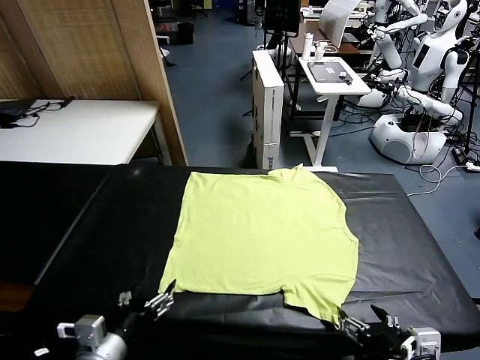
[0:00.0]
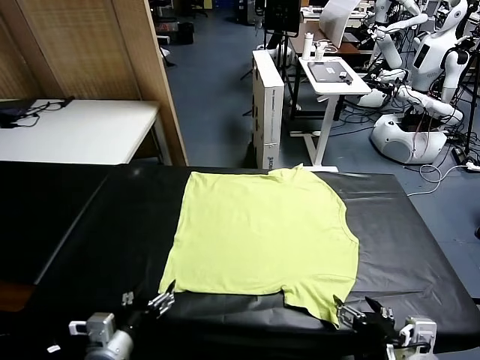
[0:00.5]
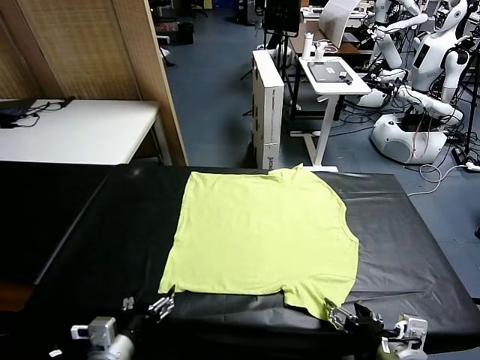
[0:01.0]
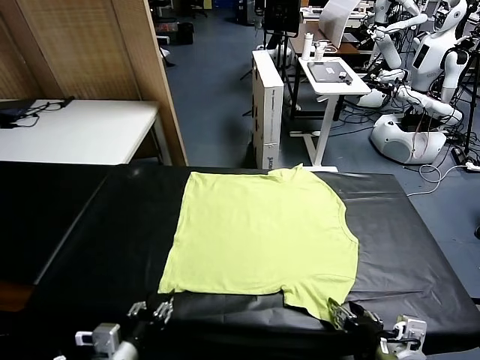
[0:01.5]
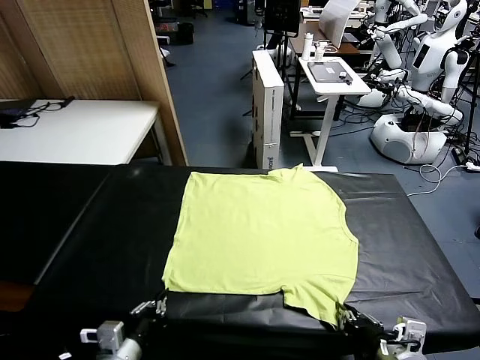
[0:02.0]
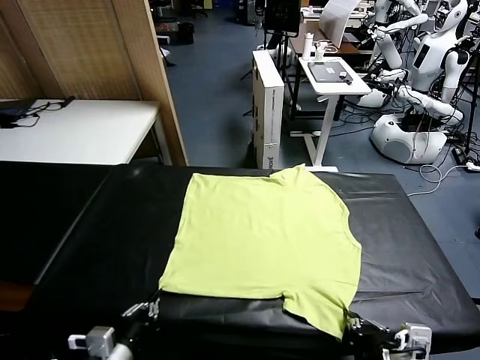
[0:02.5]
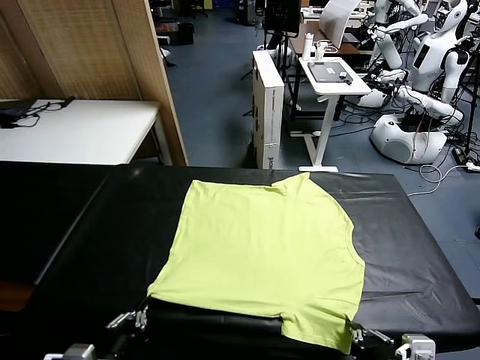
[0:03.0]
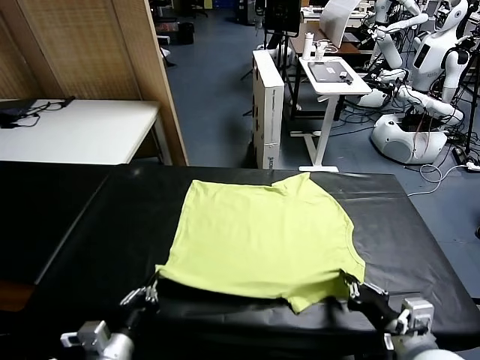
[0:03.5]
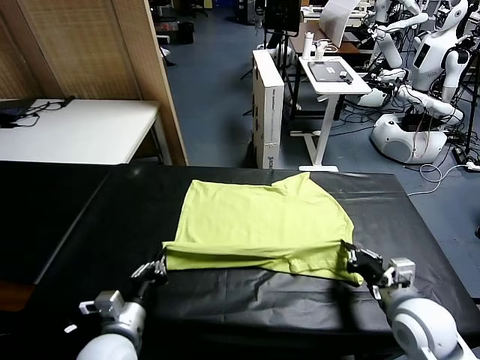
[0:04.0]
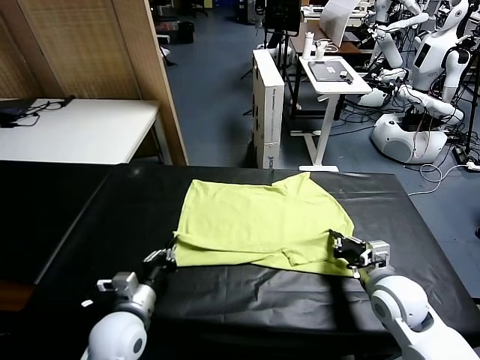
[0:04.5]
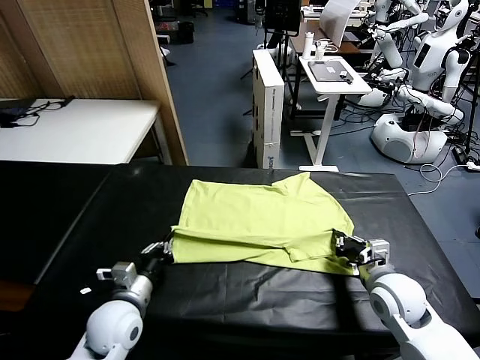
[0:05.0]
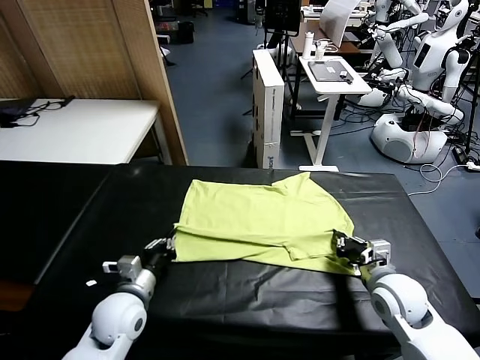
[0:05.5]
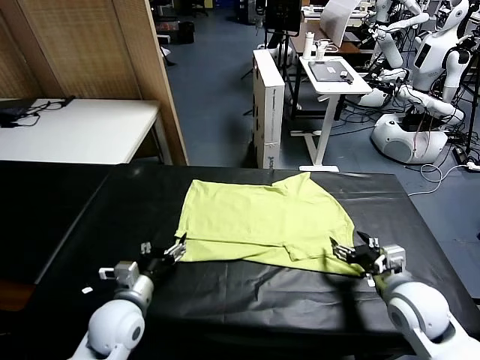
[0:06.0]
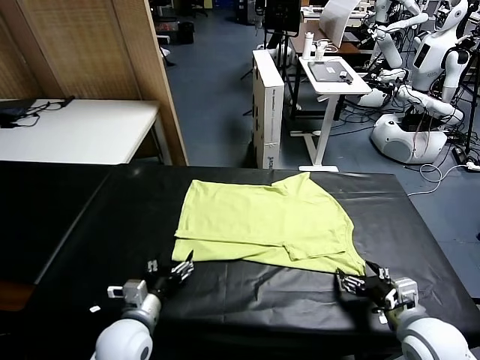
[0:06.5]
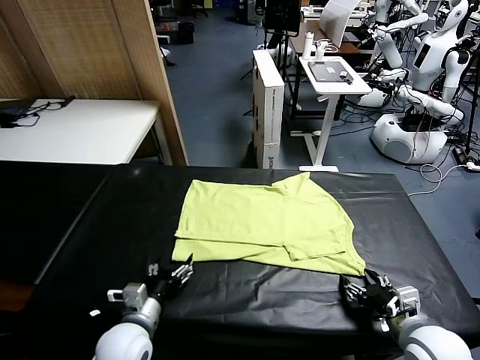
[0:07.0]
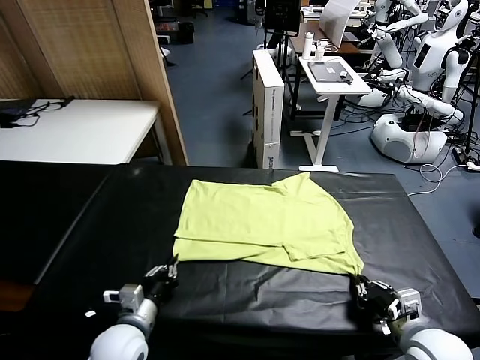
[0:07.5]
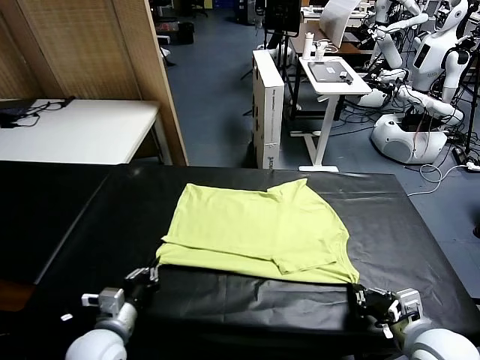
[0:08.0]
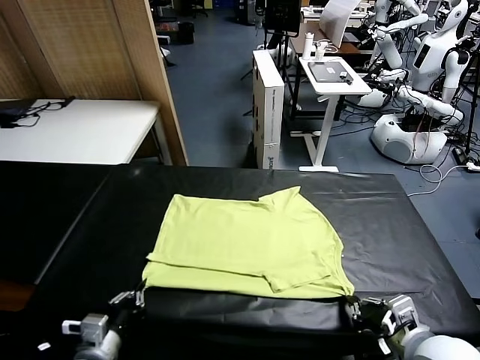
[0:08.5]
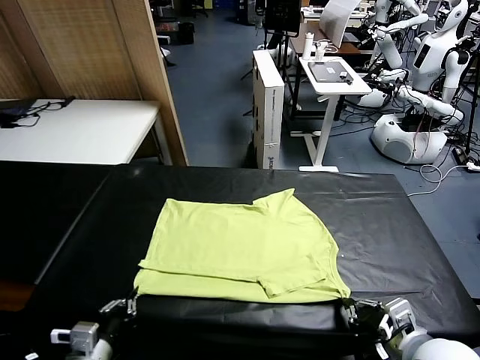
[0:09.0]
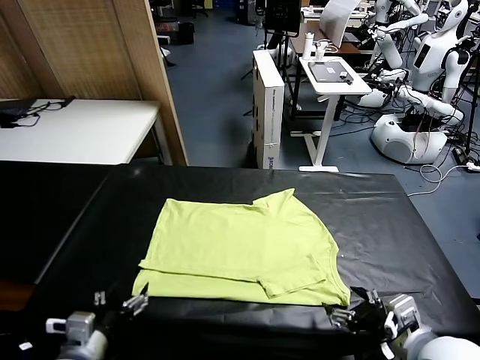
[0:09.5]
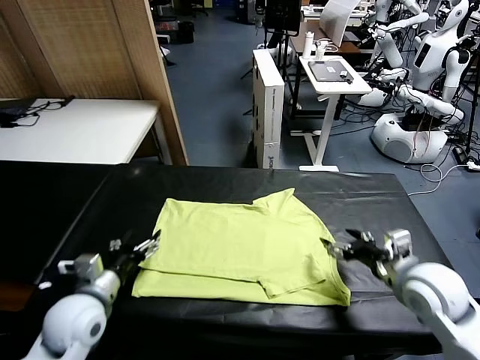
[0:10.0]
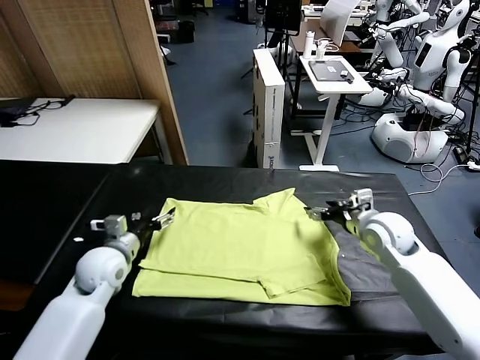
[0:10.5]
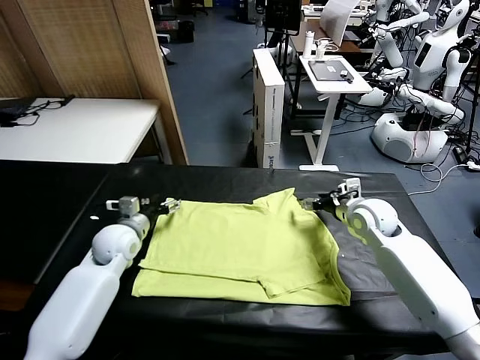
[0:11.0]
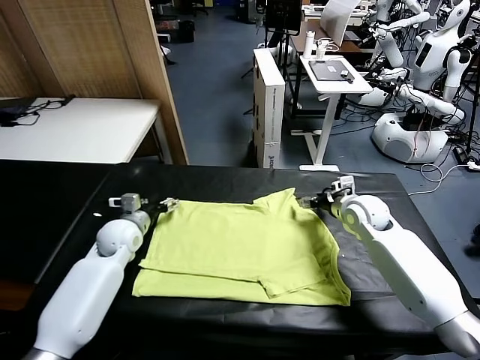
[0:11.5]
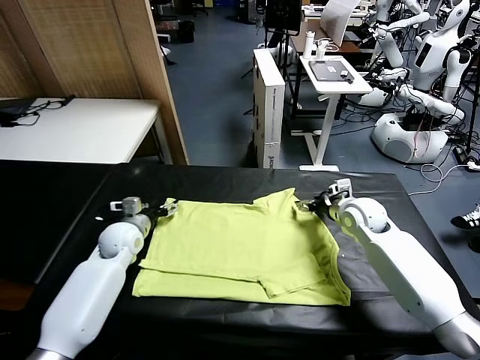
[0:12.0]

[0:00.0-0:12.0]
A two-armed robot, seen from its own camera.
Task of the whole recording: fold and organize the clothes.
Step, 0:00.0 to 0:02.0: use both grippers simultaneously to clamp the lower edge of the clothing fabric.
Step, 0:02.5 to 0:05.5: use both grippers to drag the lower edge of the fabric forward and fold it over the upper edge.
Step, 0:06.0 to 0:09.0: Drag the clothes downward with both gripper.
0:02.0 to 0:04.0: The right gripper is displaced forward by about 15 cm, while the left gripper shifts roughly 10 cm forward.
0:04.0 to 0:06.0: The left gripper opens its fingers. Meanwhile the right gripper shifts approximately 5 cm backward, and opens up.
0:06.0 to 0:08.0: The left gripper heads backward, covering roughly 5 cm, and closes. The right gripper ends up some 5 cm from where it was, and closes its fingers.
0:08.0 to 0:10.0: The left gripper goes about 15 cm forward and upward, and opens its fingers, while the right gripper moves forward, about 20 cm, and opens up.
0:10.0 to 0:12.0: The left gripper moves forward, some 15 cm. The right gripper travels forward by approximately 10 cm.

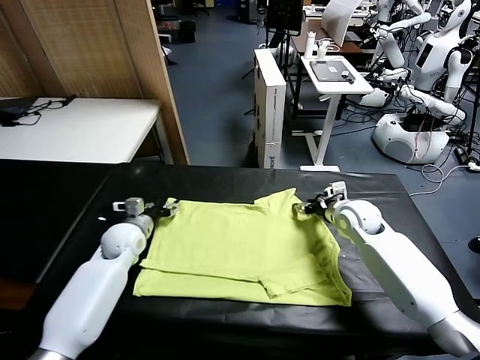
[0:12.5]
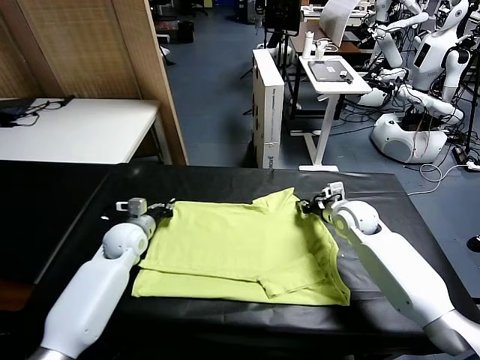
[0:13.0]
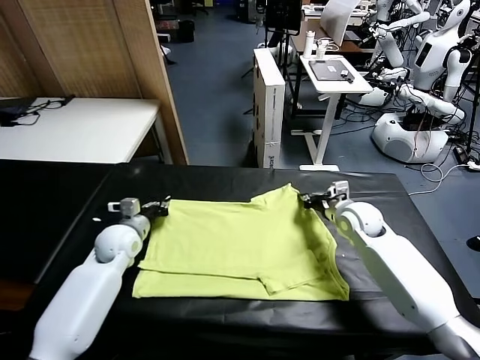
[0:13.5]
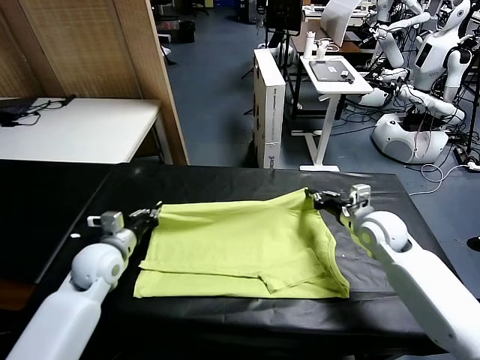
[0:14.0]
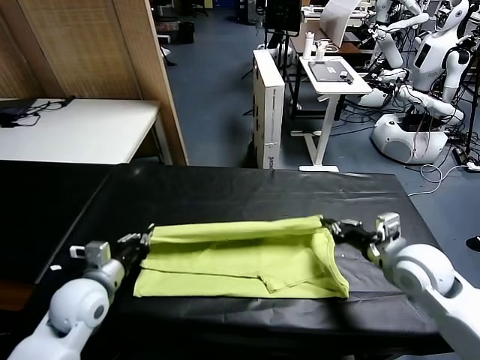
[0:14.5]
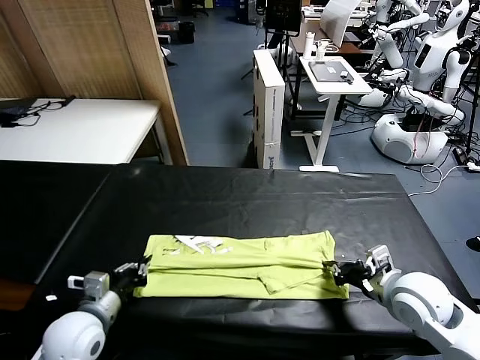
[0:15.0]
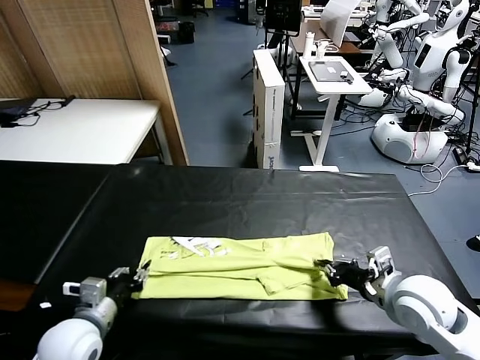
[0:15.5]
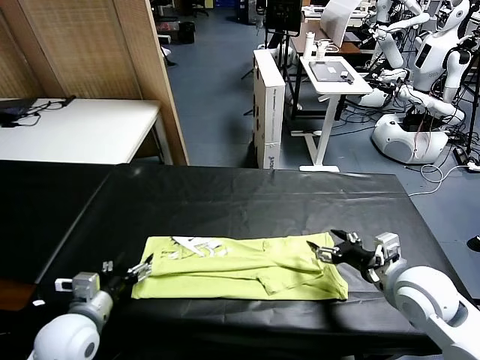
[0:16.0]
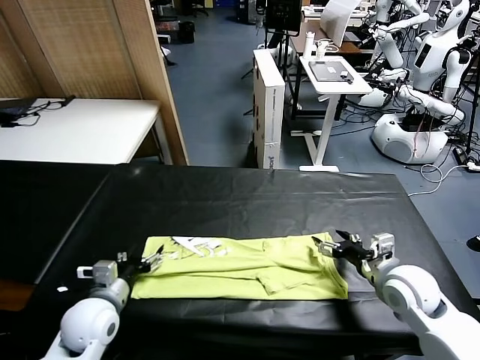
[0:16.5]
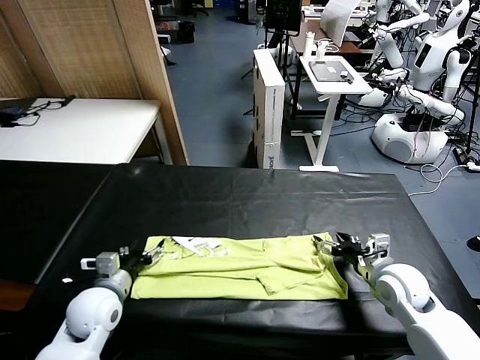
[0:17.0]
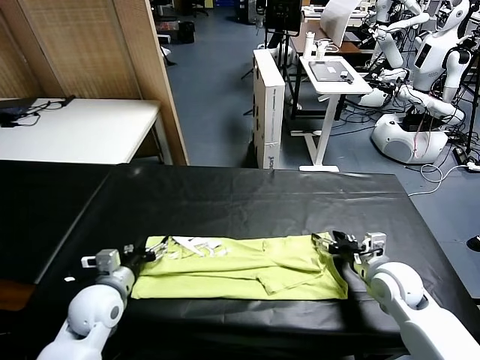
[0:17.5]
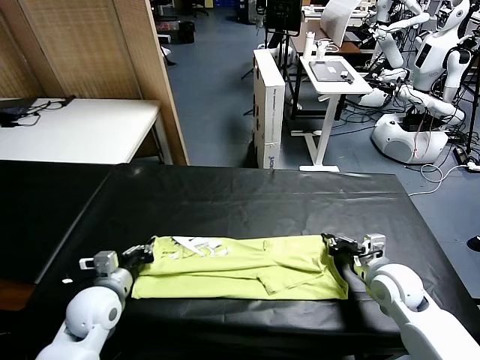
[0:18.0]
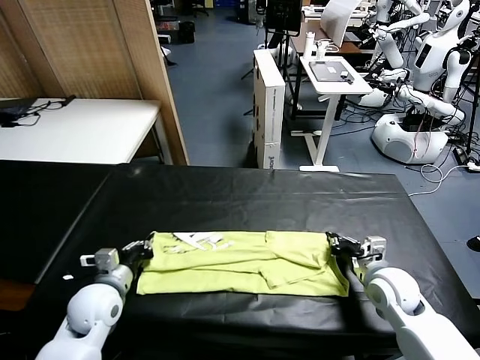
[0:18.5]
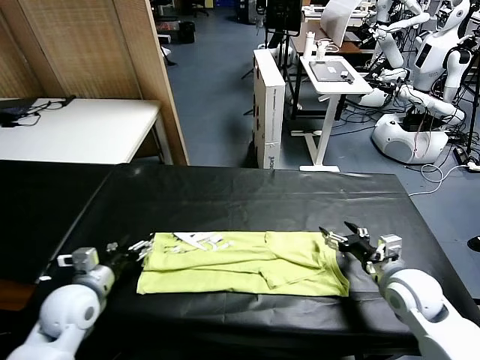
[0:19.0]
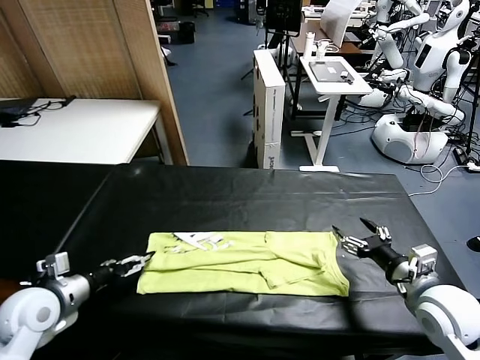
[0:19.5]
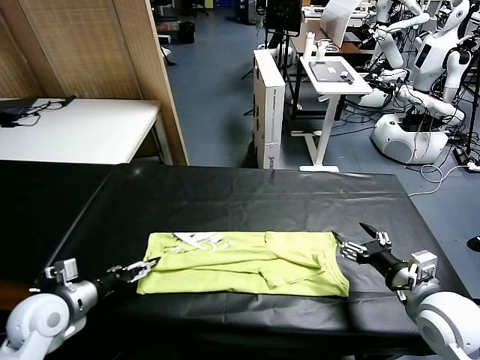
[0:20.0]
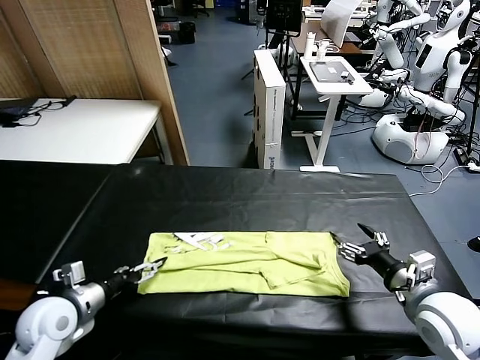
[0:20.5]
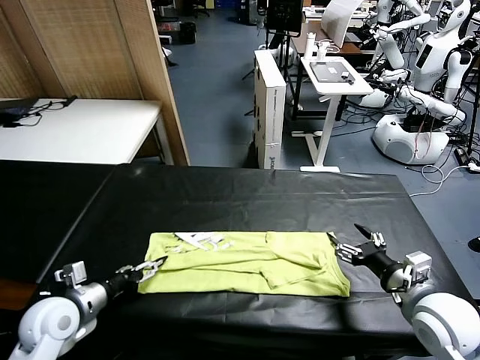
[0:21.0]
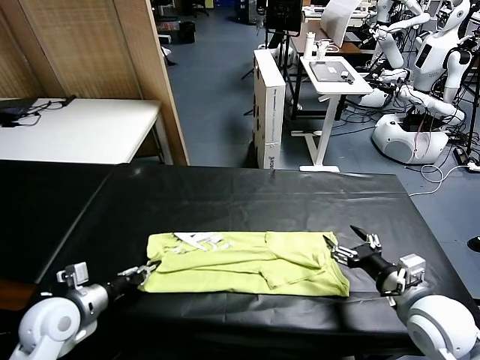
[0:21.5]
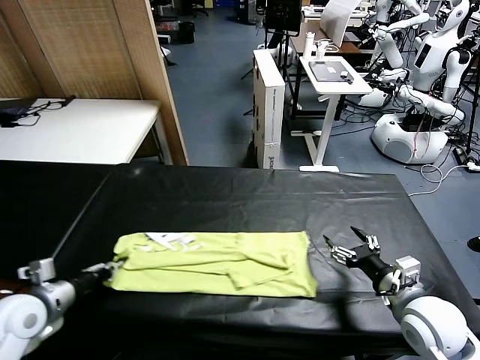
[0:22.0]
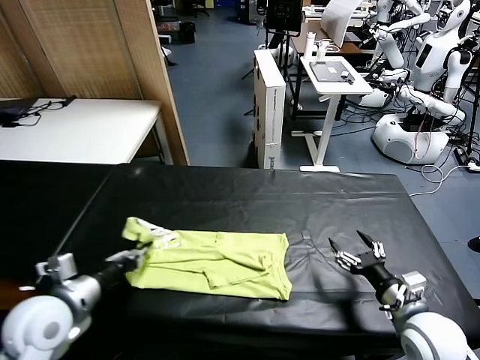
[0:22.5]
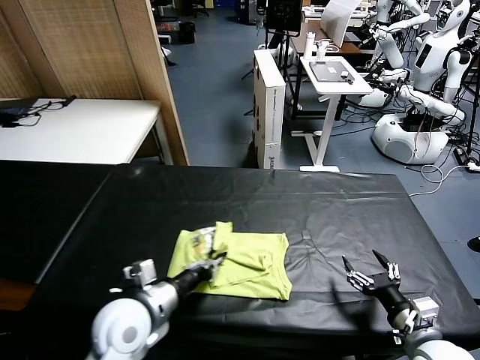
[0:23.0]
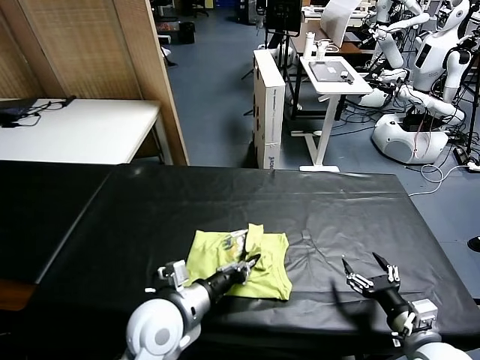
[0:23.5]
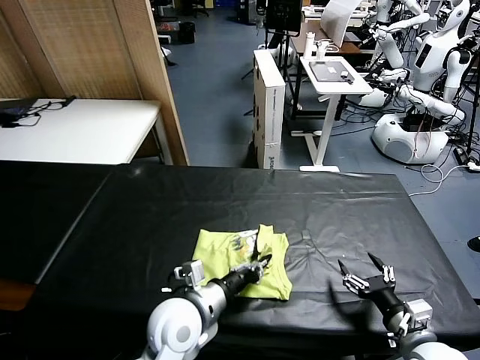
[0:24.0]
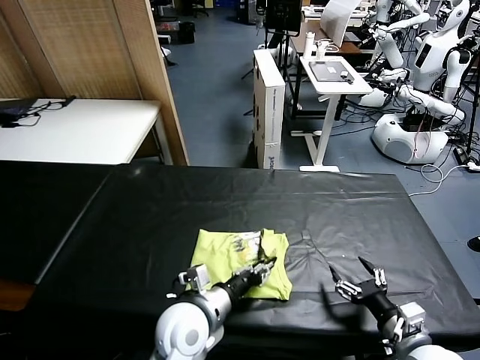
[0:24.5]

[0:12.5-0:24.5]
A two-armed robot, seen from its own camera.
Task of the whole recording: fold and organize the clothes.
Step, 0:13.5 to 0:15.5: use both grippers to drag the upper edge of the fabric backward and fold it over the lower edge.
Step, 0:16.0 to 0:21.5: use the left gripper to clamp the left edge of the fabric.
0:12.5 to 0:14.5: Both grippers move backward, approximately 20 cm. The right gripper closes up.
0:14.5 to 0:16.5: The right gripper is displaced downward by some 5 cm, and opens its fingers. Meanwhile the left gripper opens up.
0:16.5 to 0:18.5: The left gripper closes its fingers. Meanwhile the right gripper closes its fingers.
0:18.5 to 0:20.5: The right gripper is displaced backward and upward by roughly 10 cm, and opens. Meanwhile the left gripper goes approximately 5 cm to the left, and opens.
0:20.5 to 0:22.5: The right gripper goes roughly 5 cm downward. The left gripper heads upward and to the right, covering about 10 cm, and closes up.
0:22.5 to 0:24.5: The left gripper goes approximately 20 cm to the right, and opens its fingers.

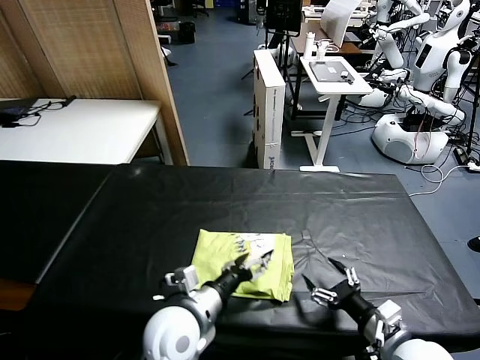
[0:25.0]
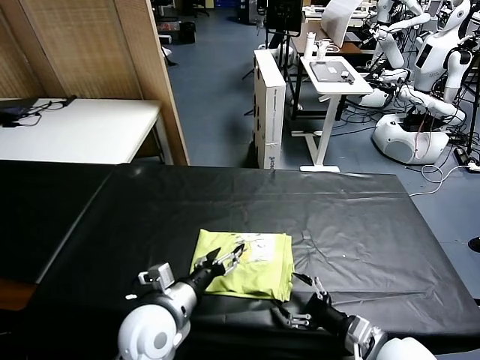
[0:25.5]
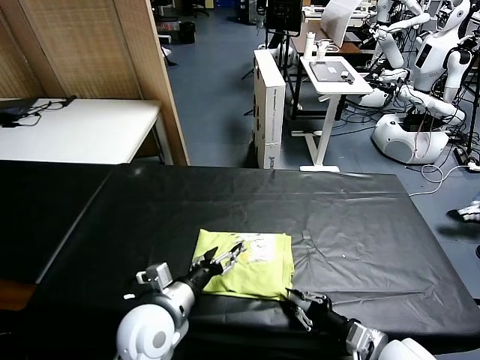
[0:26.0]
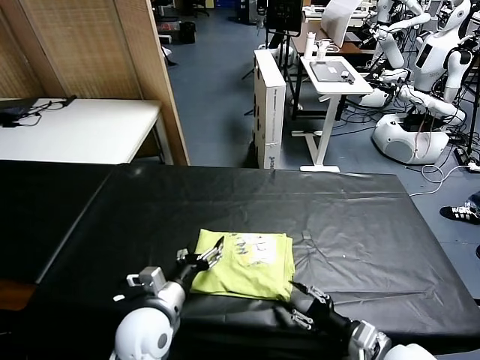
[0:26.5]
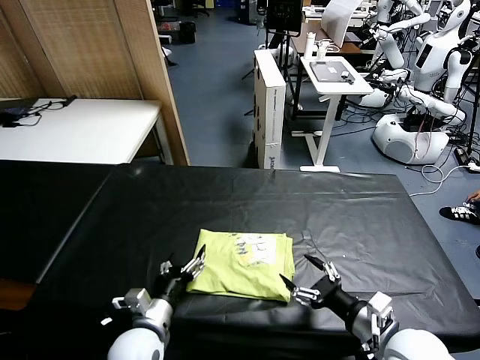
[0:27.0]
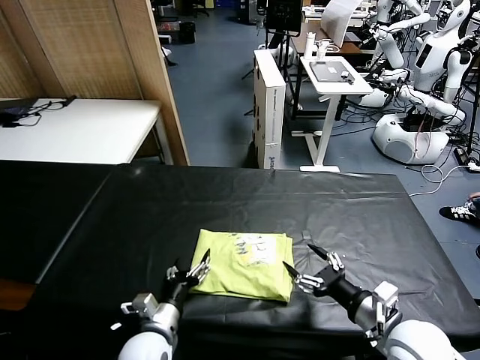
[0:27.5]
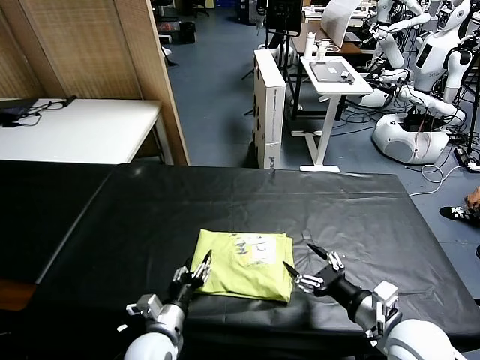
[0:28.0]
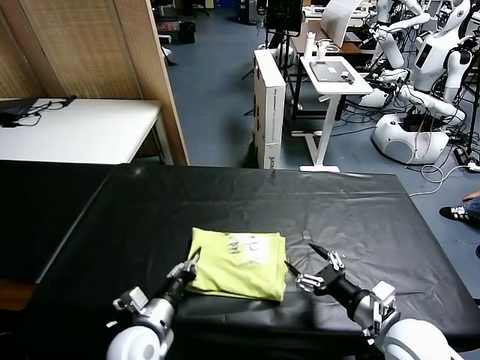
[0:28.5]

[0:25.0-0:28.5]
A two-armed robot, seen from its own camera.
Task of the whole recording: fold and organize the clothes.
0:25.0 to 0:27.0: The right gripper closes and opens again. The left gripper heads to the left and downward, covering some 10 cm.
0:27.0 to 0:28.5: The left gripper closes up.
